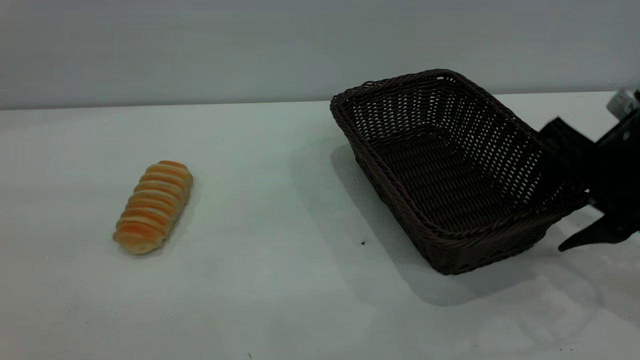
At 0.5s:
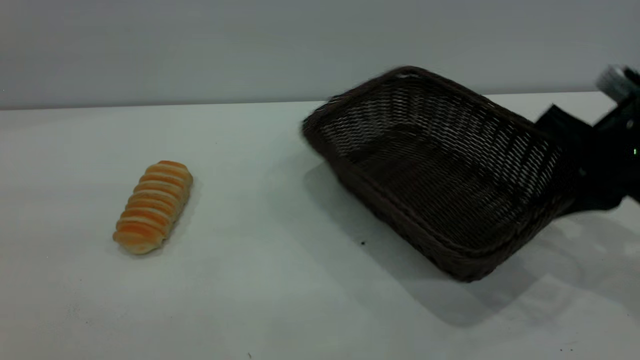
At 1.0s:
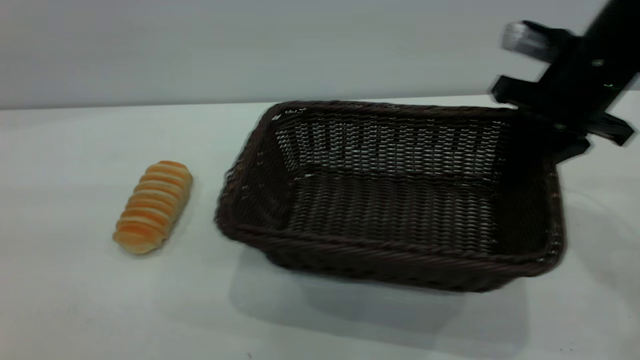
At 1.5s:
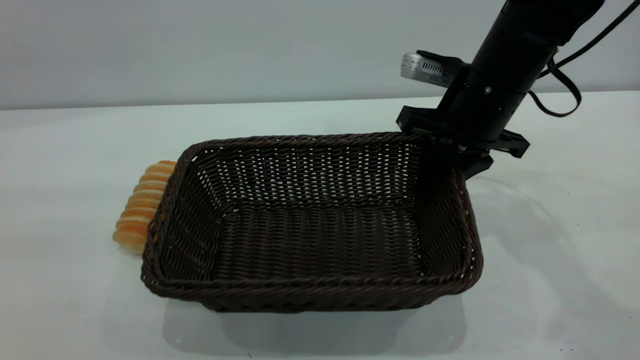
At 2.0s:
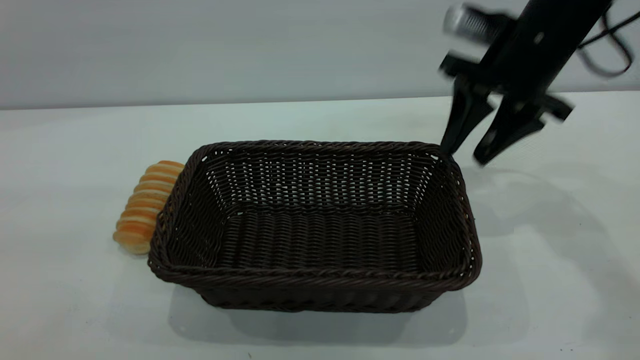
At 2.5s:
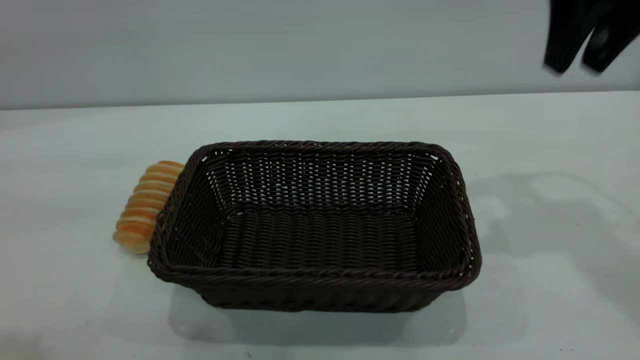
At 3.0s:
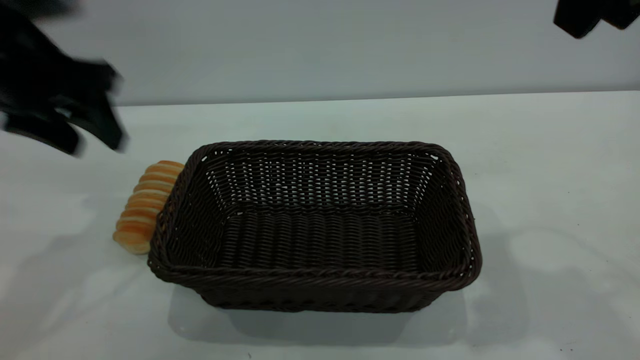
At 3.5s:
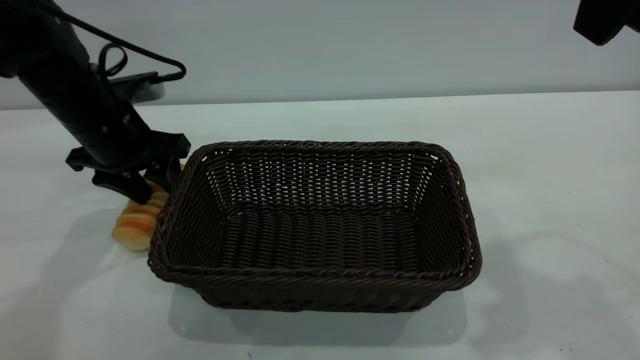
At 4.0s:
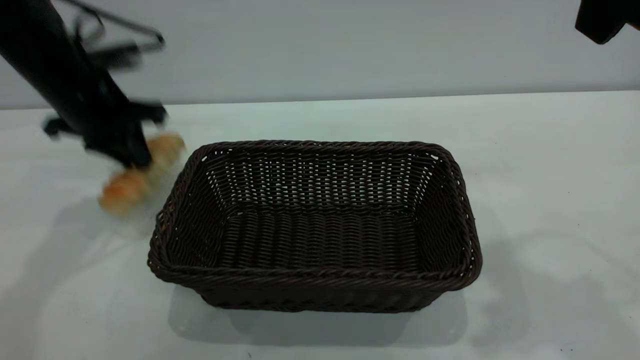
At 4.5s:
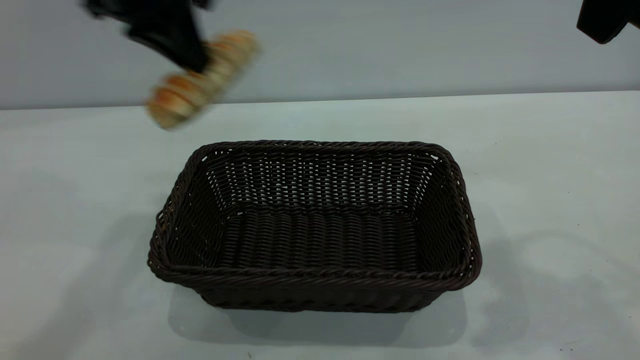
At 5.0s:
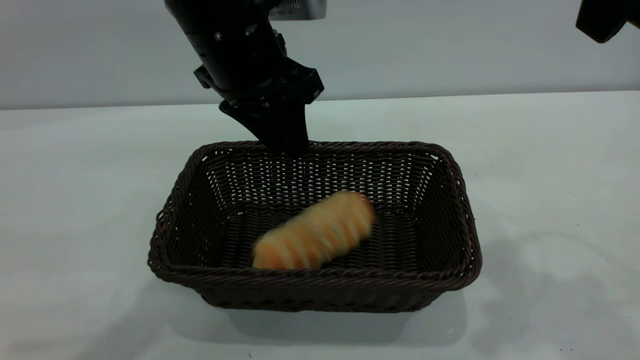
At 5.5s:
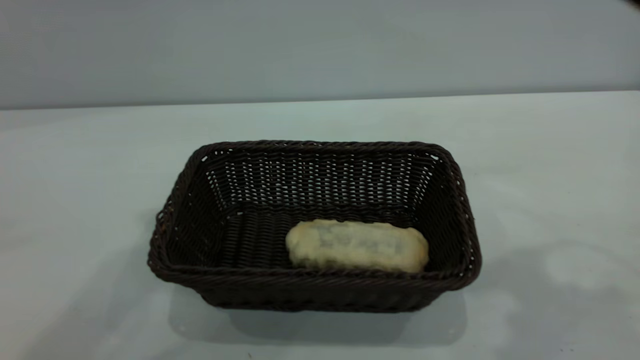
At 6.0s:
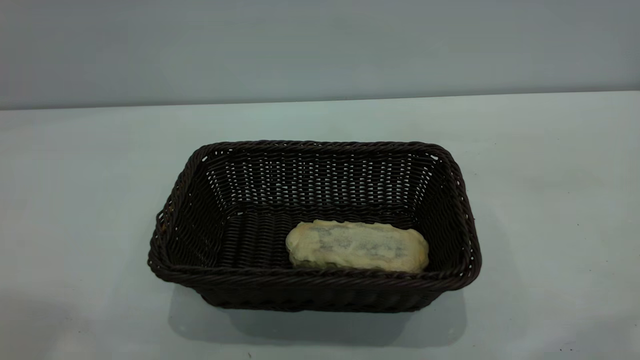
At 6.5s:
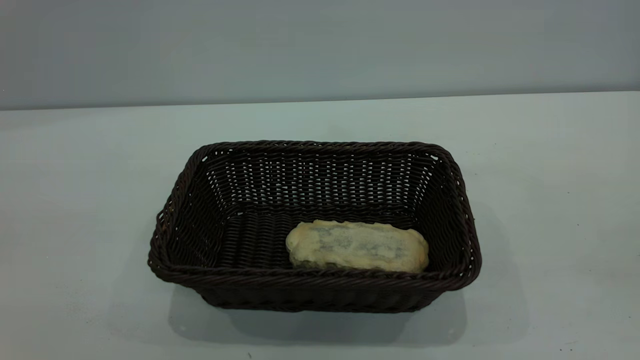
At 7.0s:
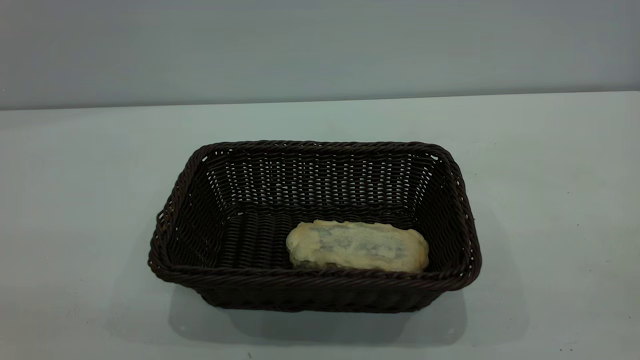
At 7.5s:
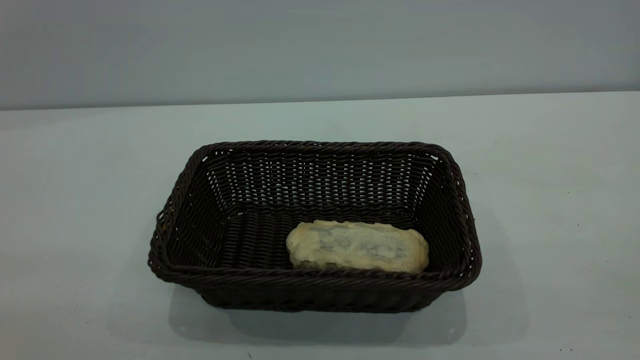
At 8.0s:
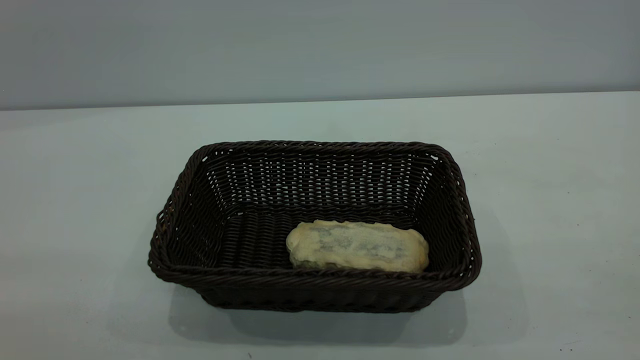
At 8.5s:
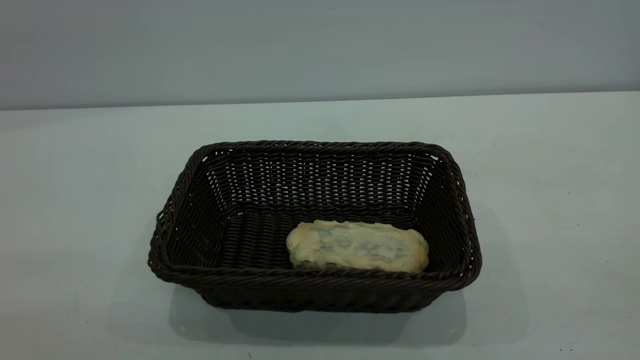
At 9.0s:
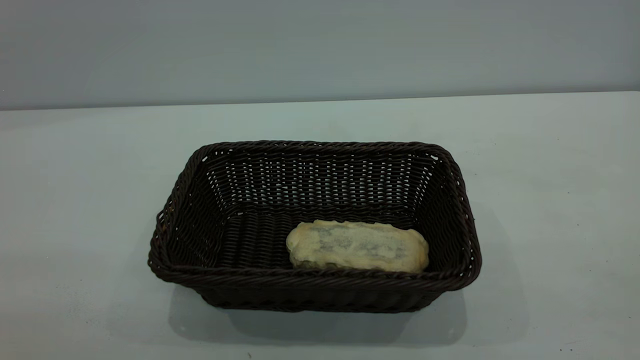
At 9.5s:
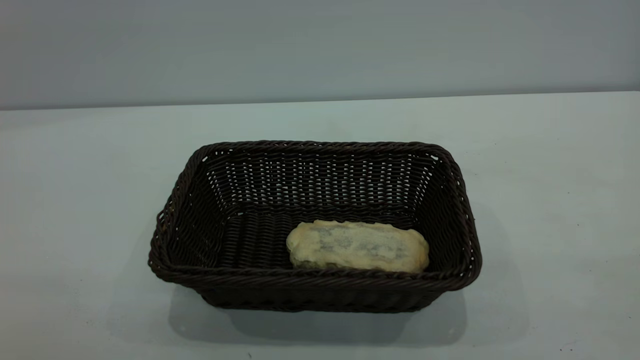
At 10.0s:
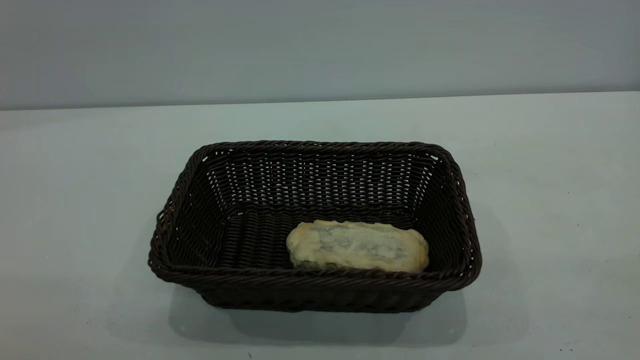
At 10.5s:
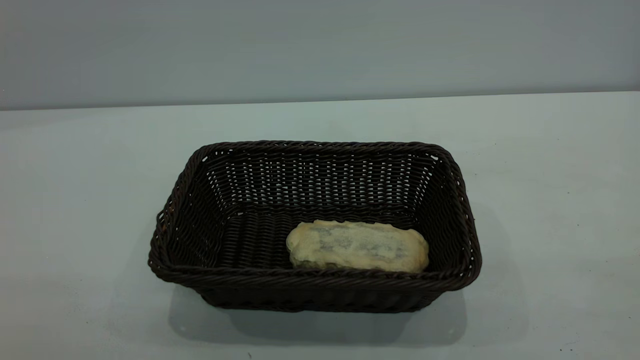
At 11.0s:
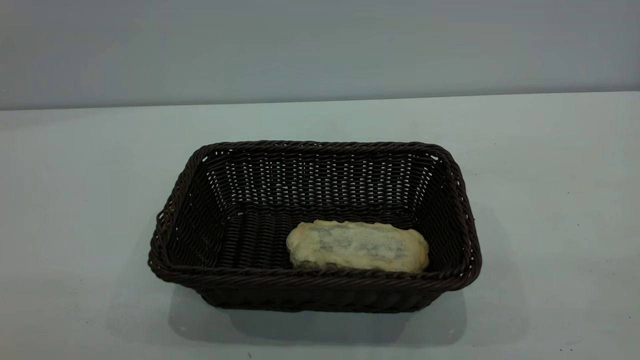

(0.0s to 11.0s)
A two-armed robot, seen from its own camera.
Task of the whole recording: One hand grasps the black basket and places it in the middle of the table, while the other hand picks up the long bread and puts it into the black basket.
Step, 0.0s - 2.0s: Move the basket to the center of view.
Step, 4.5s - 5.0s: place the bread into the basket.
0.0s - 2.0s: The right gripper is displaced forward, upward and to the left by approximately 15 cm, and closes, then reopens.
2.0s - 3.5s: The right gripper heads upward and backward, covering roughly 25 cm. The left gripper shifts about 40 cm forward and downward.
3.5s - 5.5s: The left gripper moves up and down over some 30 cm, changing direction 2 times, and closes, then opens again.
7.5s - 9.0s: Both grippers stay about where they are.
